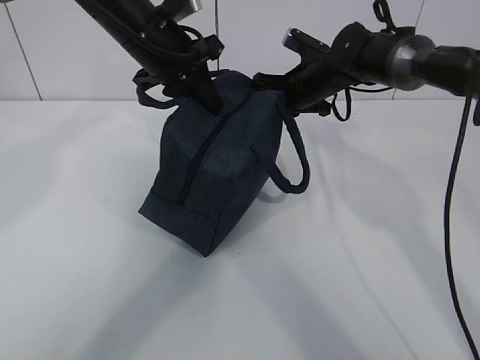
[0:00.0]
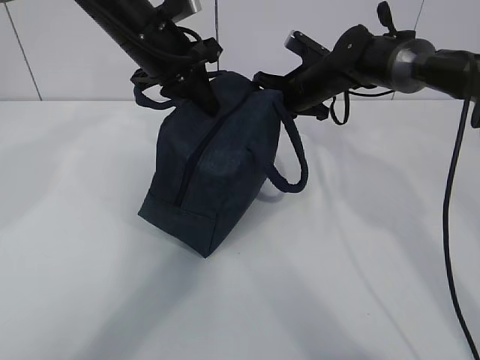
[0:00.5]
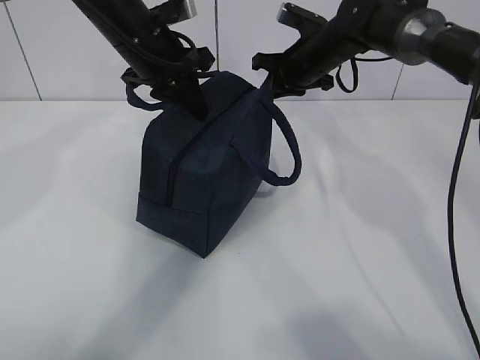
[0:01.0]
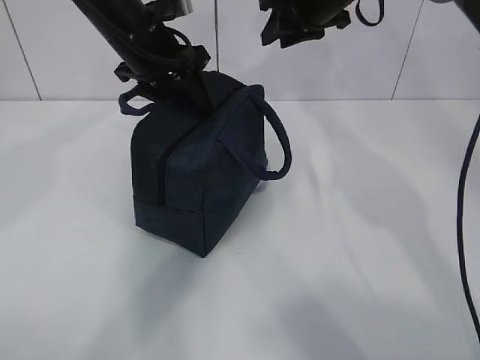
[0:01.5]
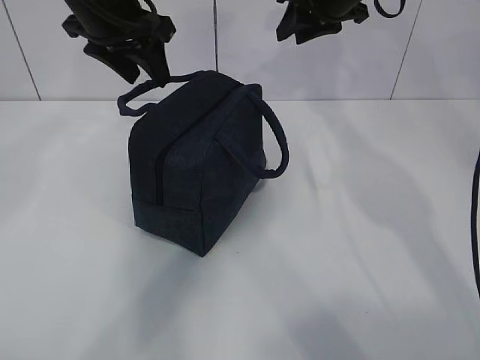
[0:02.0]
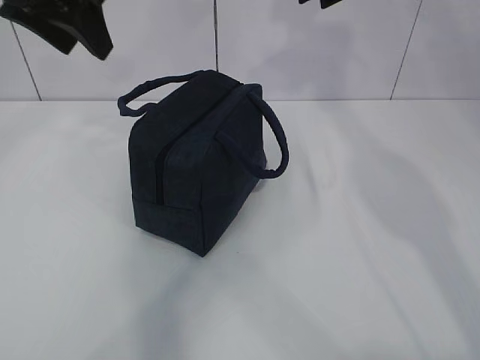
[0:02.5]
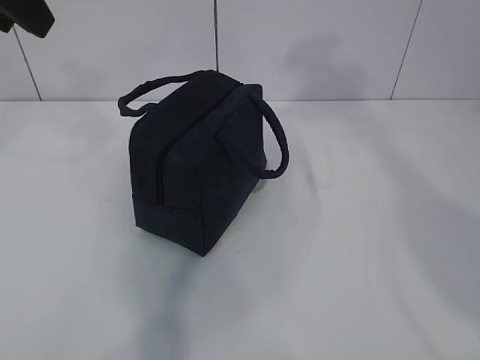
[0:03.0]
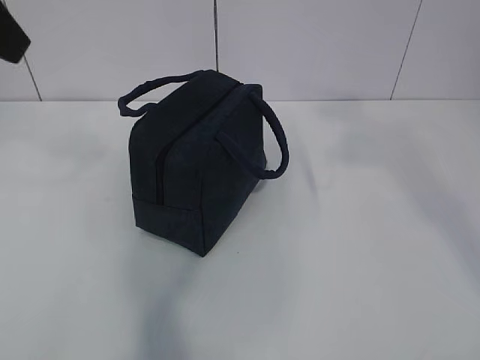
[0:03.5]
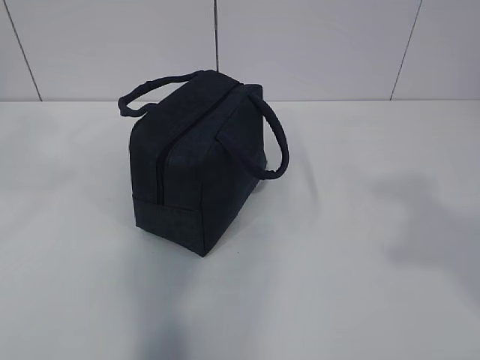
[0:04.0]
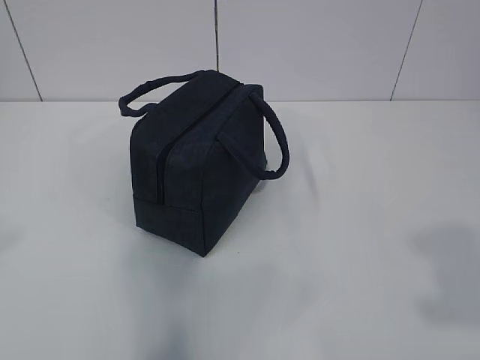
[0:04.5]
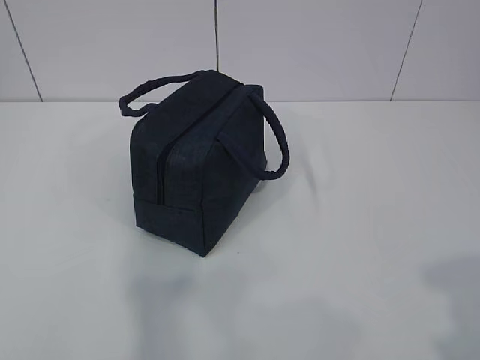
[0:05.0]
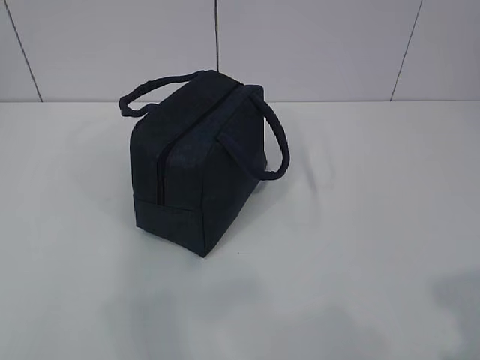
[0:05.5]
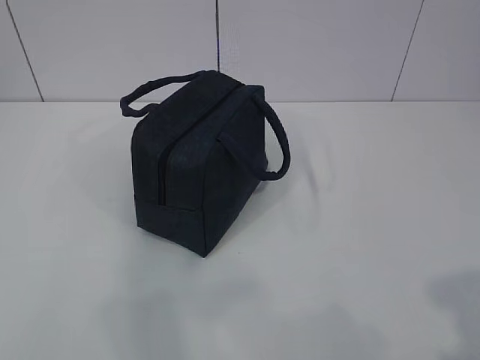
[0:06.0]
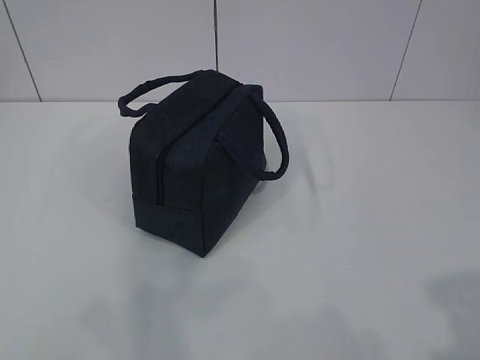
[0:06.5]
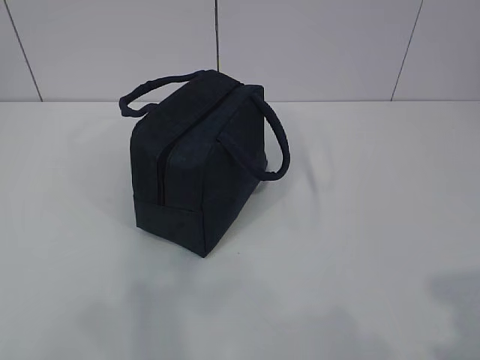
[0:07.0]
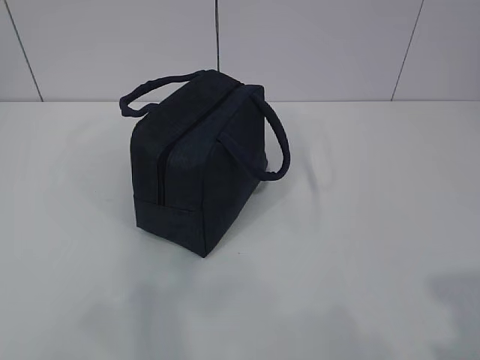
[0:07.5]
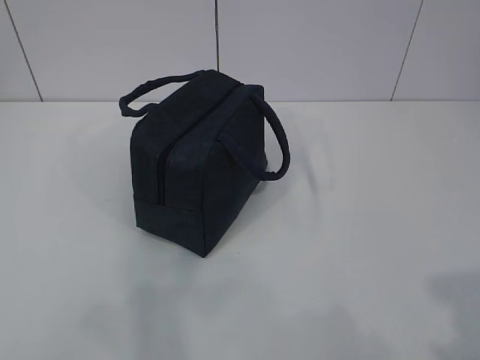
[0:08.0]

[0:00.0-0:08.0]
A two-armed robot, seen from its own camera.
0:00.0 to 0:02.0: The left gripper shifts by some 5 cm, and opens up. Meanwhile the right gripper heads upward, covering about 15 cm, and opens.
0:02.0 to 0:04.0: The right gripper goes approximately 40 cm backward; the left gripper shifts approximately 30 cm backward and upward.
0:04.0 to 0:06.0: The left gripper shifts roughly 25 cm backward, downward and to the left, while the right gripper is displaced downward and backward by approximately 15 cm.
